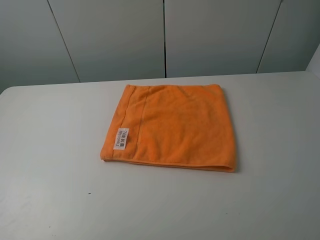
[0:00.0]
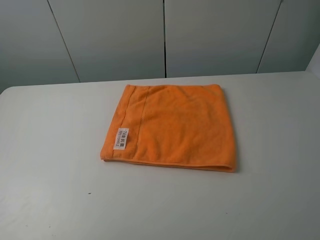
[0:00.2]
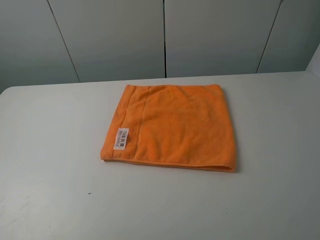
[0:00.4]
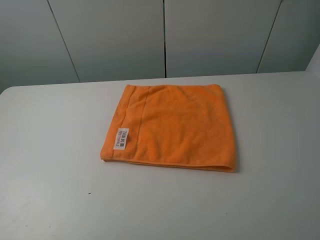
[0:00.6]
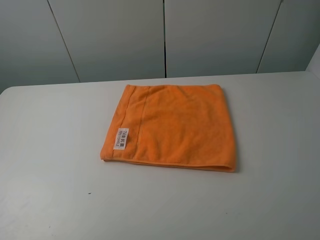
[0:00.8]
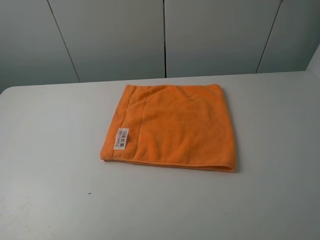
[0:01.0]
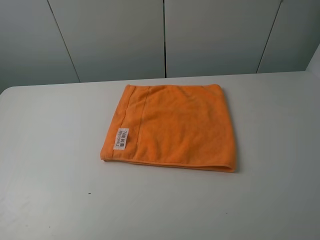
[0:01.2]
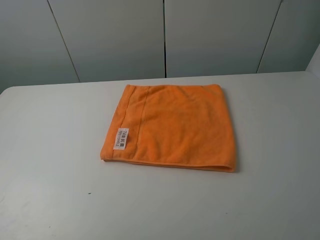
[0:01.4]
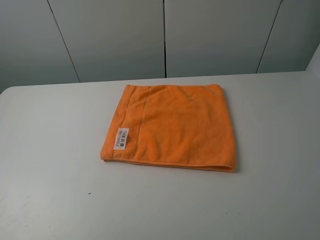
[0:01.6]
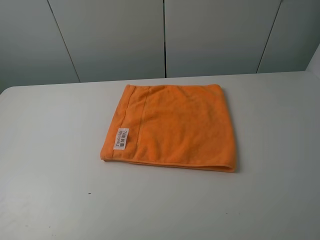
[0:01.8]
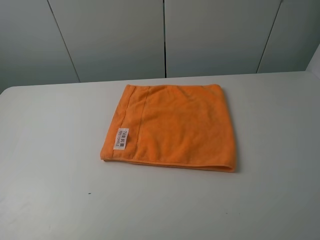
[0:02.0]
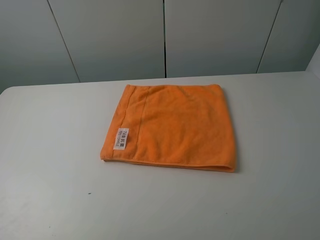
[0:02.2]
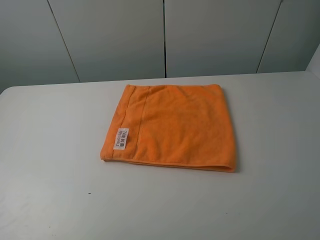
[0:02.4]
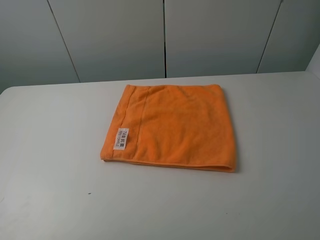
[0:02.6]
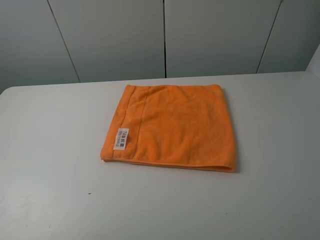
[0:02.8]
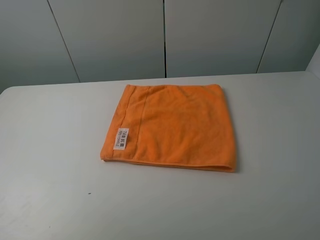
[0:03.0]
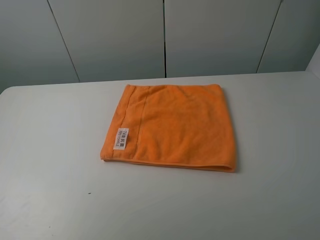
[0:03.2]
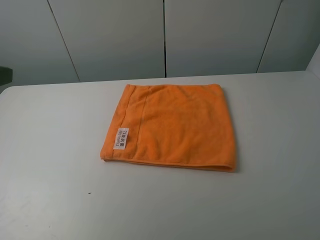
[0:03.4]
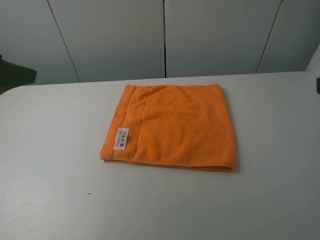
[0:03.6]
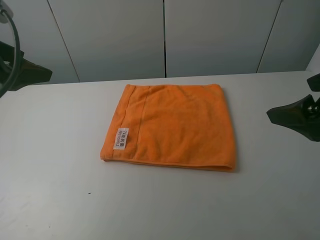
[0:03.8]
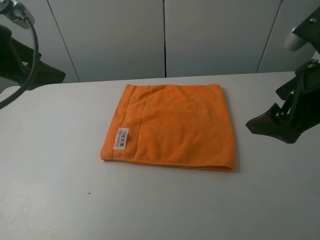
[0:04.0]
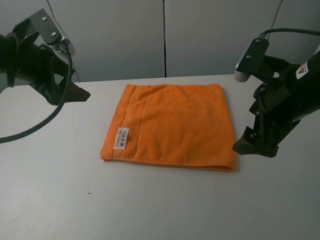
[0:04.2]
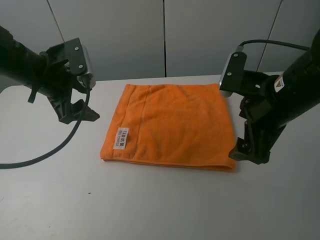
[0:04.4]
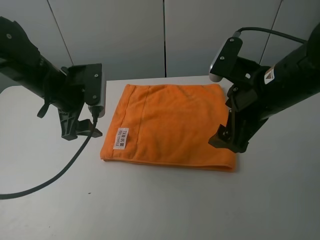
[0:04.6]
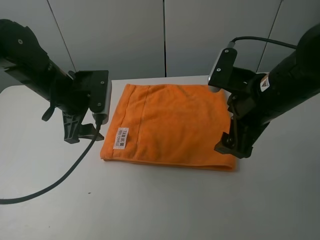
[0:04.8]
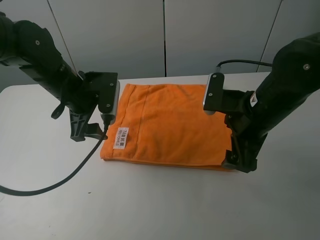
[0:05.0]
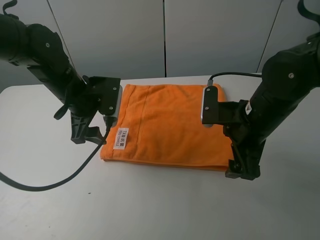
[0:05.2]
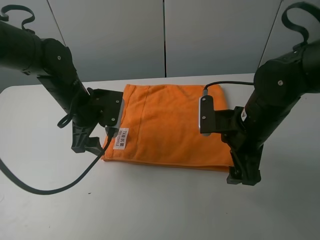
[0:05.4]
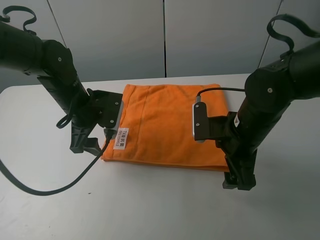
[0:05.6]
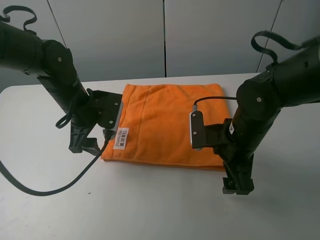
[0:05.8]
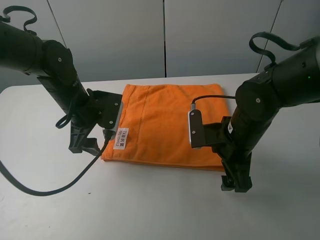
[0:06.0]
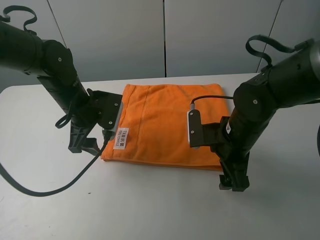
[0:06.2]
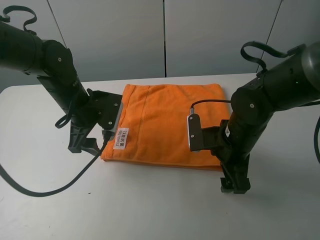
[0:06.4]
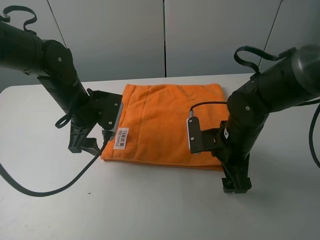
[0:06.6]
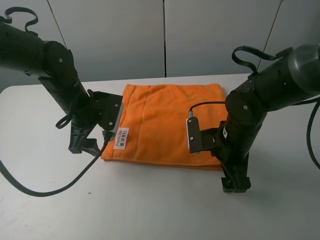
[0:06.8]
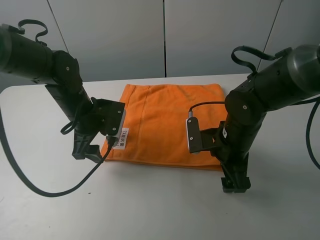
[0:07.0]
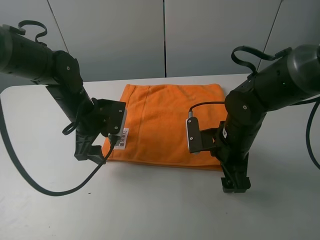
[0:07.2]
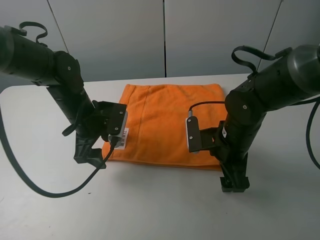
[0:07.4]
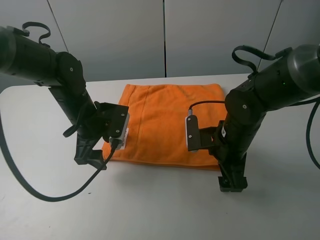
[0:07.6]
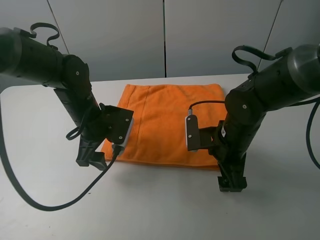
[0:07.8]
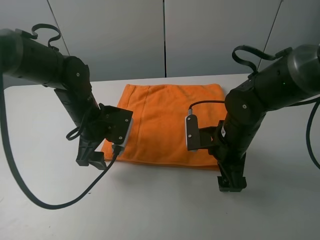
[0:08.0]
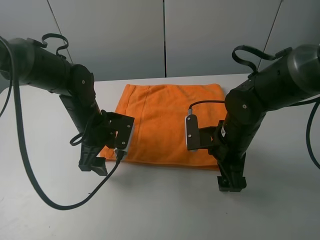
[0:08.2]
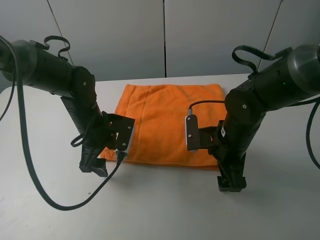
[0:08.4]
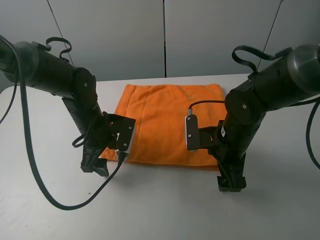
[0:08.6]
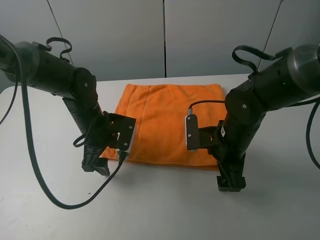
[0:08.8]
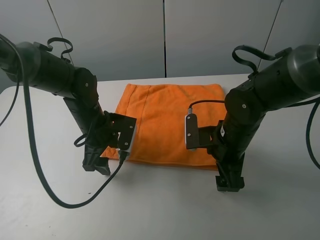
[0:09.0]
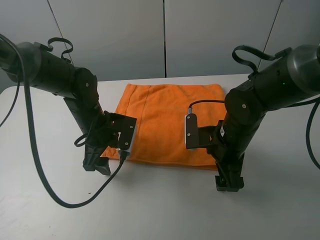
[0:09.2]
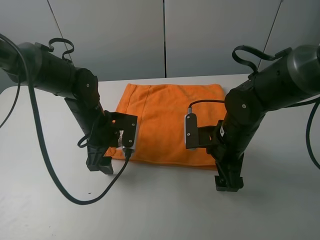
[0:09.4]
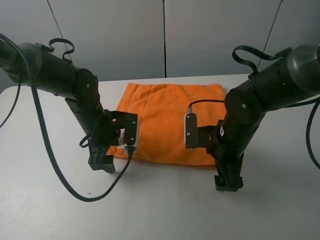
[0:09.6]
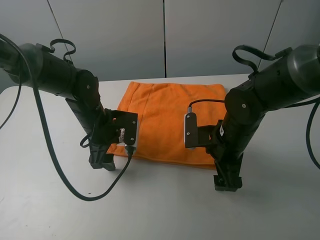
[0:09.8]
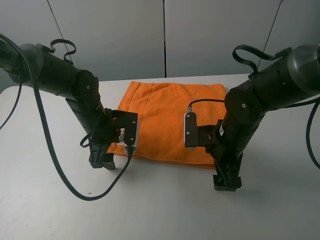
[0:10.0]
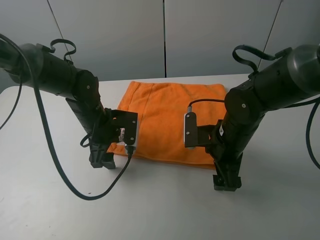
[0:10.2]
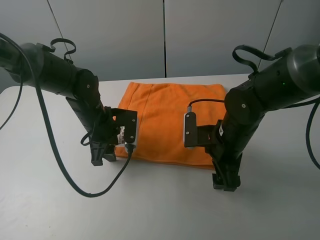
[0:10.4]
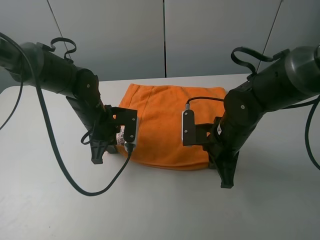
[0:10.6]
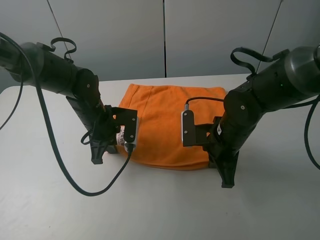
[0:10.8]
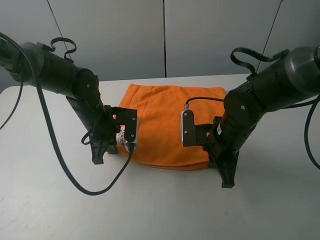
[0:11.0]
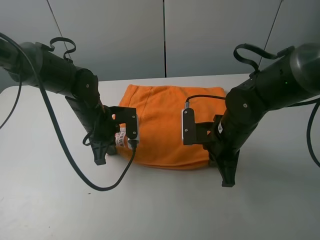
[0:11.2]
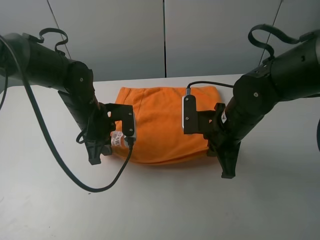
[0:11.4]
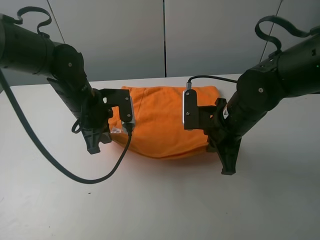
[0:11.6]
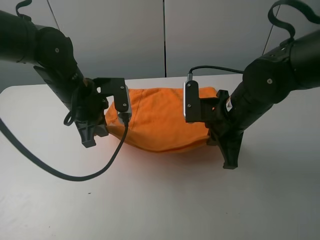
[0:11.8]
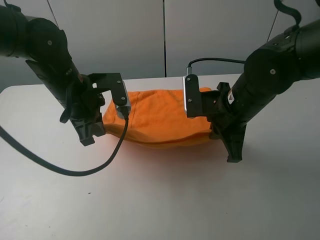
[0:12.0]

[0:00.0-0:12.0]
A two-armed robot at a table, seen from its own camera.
Task of the whole recording: fold the towels on the table.
Step, 0:00.0 to 0:10.6: Grasp the orange towel with the right gripper.
0:00.0 to 0:01.6: Neither gripper changes place.
0:03.0 to 0:04.4: The left gripper is displaced forward, to the right and downward by some 25 cm; the right gripper goes some 25 cm forward, to the left and downward.
0:04.4 to 0:06.0: Both grippers travel together downward, about 10 cm.
0:06.0 to 0:09.0: The grippers move only a little.
0:09.0 to 0:10.4: The left gripper closes up.
0:10.4 to 0:12.0: Both grippers move upward, about 10 cm. The left gripper closes. Meanwhile the right gripper closes up.

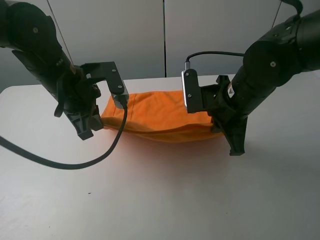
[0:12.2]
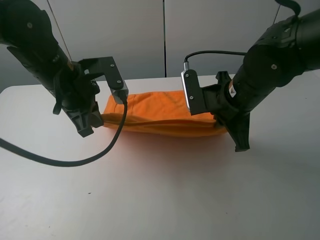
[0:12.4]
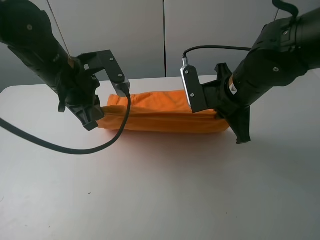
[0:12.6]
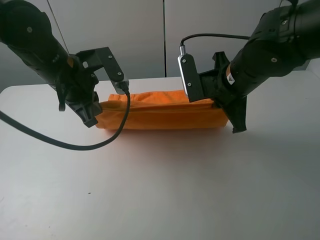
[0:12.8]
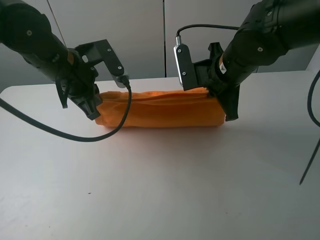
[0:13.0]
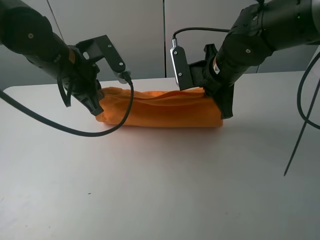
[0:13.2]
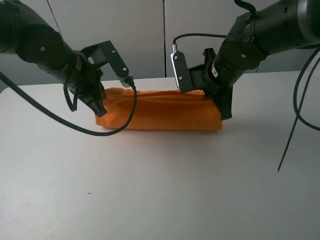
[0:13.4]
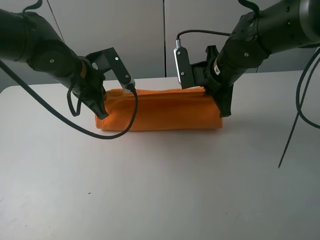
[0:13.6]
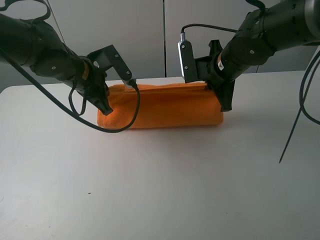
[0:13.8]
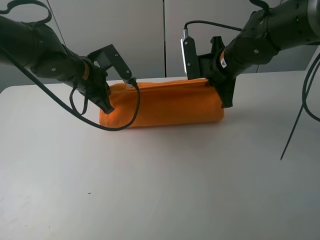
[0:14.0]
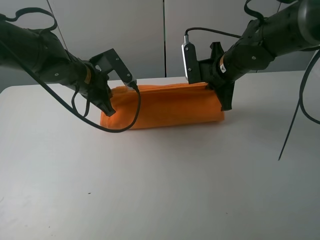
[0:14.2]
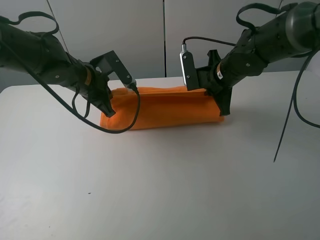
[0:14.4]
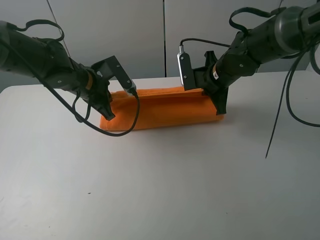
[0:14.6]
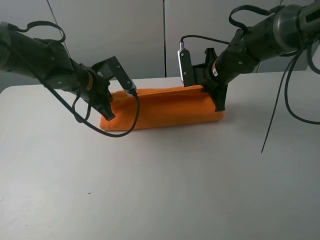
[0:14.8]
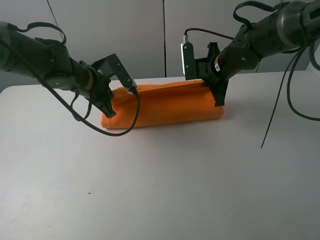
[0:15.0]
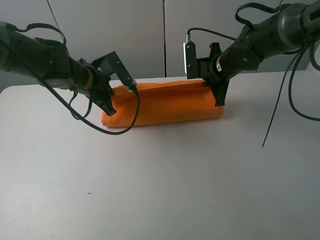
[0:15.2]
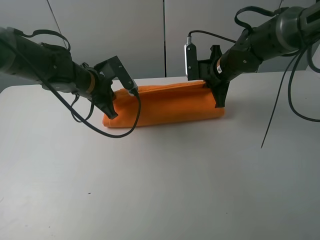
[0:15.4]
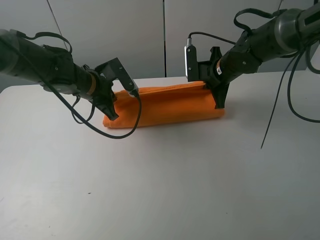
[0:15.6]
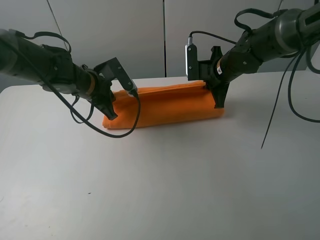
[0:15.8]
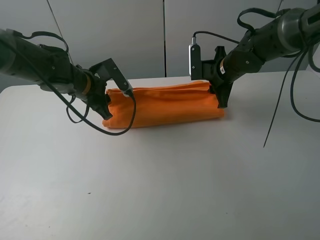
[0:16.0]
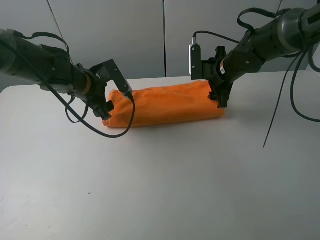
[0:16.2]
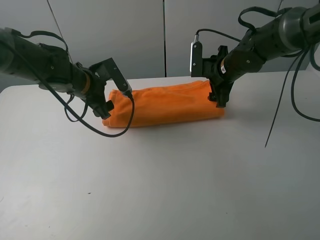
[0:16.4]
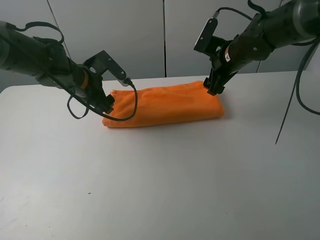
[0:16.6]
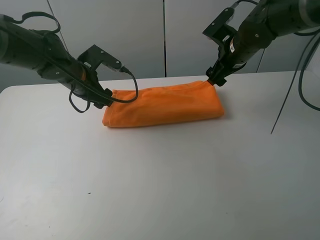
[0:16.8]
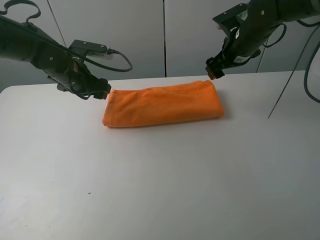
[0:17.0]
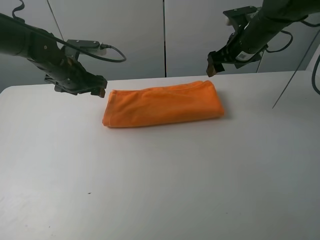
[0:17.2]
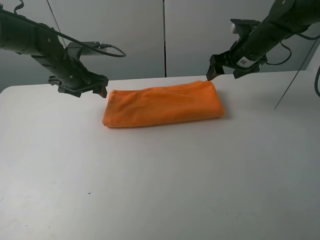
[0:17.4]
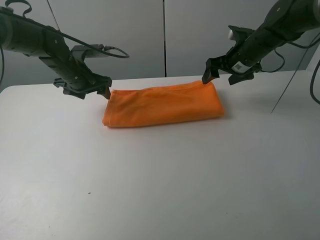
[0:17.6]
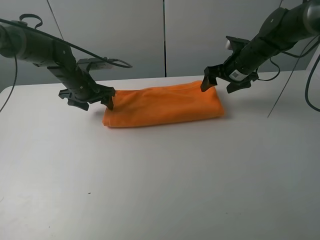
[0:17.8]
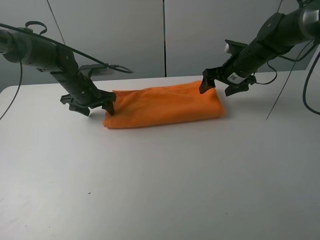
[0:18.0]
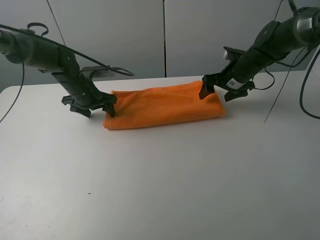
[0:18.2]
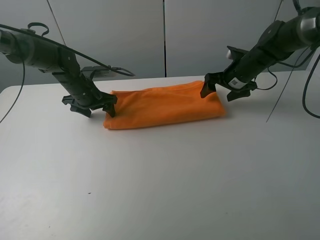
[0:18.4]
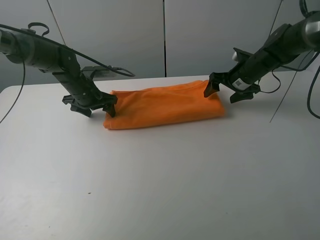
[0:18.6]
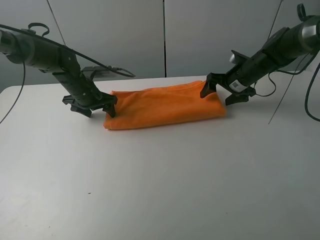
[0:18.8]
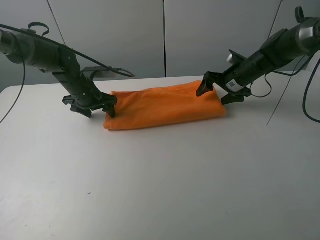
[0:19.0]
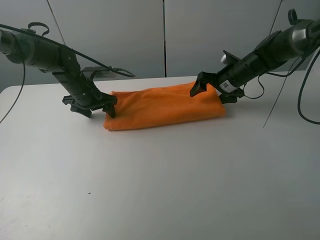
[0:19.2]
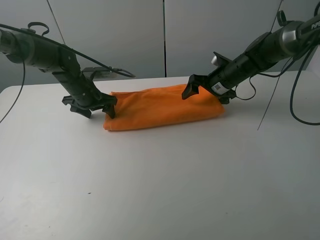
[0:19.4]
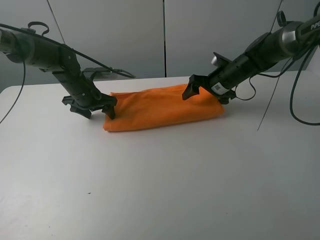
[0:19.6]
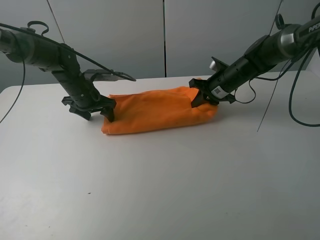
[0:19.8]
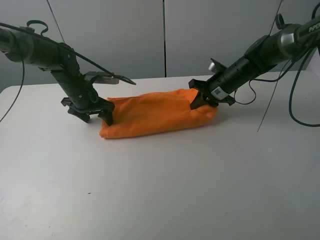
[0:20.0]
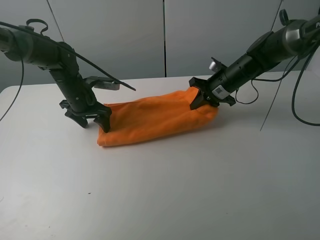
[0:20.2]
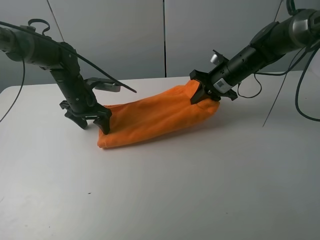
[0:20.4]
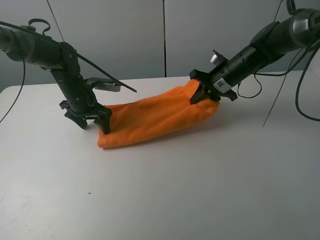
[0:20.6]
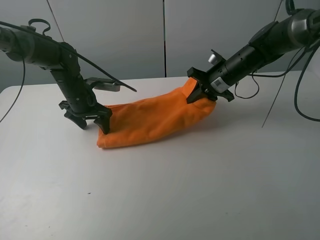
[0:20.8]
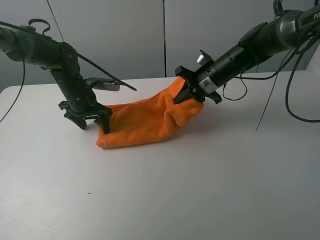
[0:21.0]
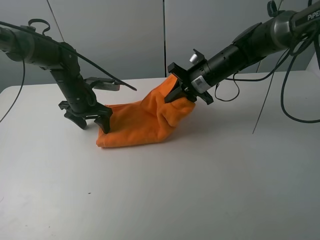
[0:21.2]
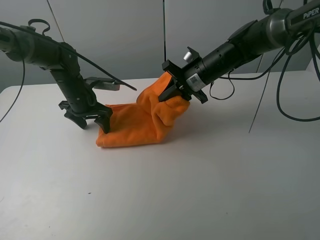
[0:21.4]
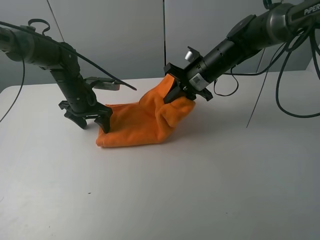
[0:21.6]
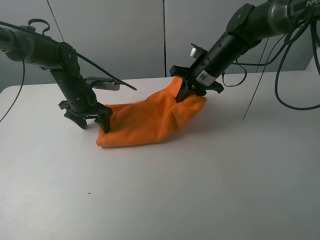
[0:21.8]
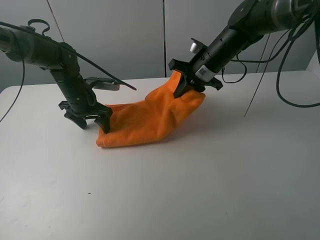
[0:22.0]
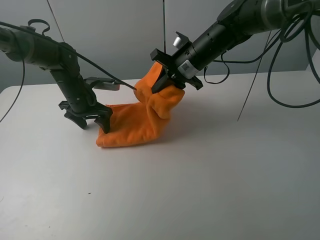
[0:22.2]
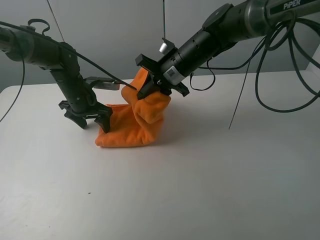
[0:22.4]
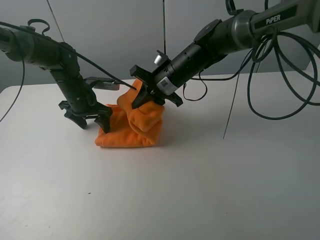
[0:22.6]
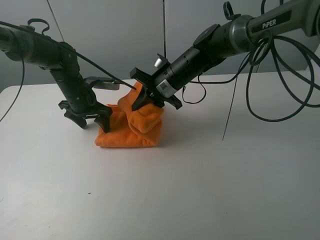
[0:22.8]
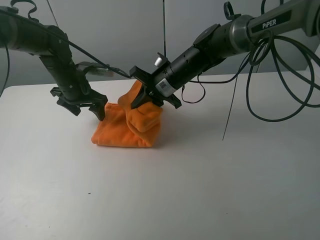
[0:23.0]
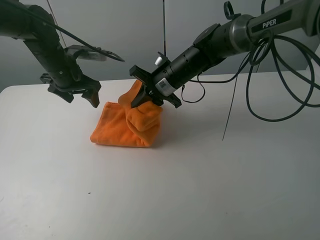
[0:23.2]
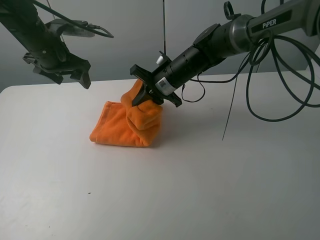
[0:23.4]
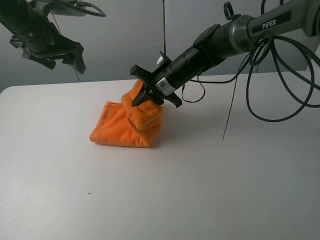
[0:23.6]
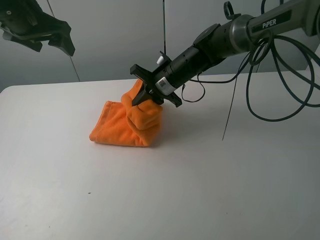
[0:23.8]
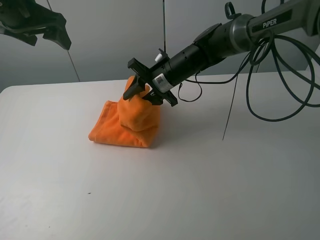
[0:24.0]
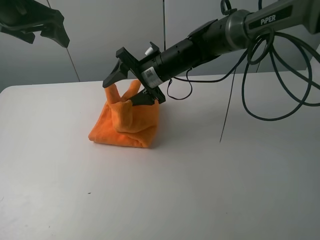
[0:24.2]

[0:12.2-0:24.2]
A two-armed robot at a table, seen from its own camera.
Task of the whole recording: fold the towels on the table.
Step, 0:12.2 to 0:16.0: Fold the orange towel upwards with the right gripper.
Step, 0:16.4 to 0:18.0: Press on the orange towel with the left gripper.
0:12.2 to 0:13.8: The left gripper shifts approximately 5 cm forward. Meanwhile the right gripper shifts approximately 10 cm forward.
0:13.8 to 0:15.2: The right gripper is displaced forward by roughly 5 cm.
0:15.2 to 0:16.6: The right gripper opens. Meanwhile the left gripper opens up.
0:16.6 to 0:18.2: The right gripper moves downward, some 5 cm. The left gripper heads downward and forward, covering some 10 cm.
0:18.2 to 0:19.8: The right gripper closes up.
0:19.8 to 0:21.2: The right gripper moves to the left, roughly 5 cm.
0:21.2 to 0:22.6: The right gripper is displaced to the left by about 10 cm.
0:22.6 to 0:24.2: The left gripper heads upward, covering roughly 25 cm. The right gripper opens up.
